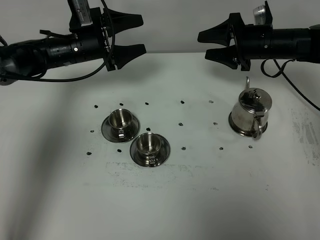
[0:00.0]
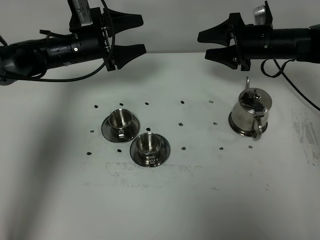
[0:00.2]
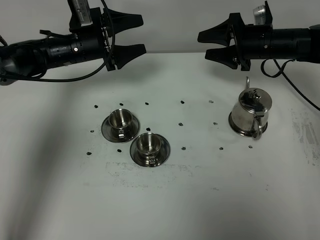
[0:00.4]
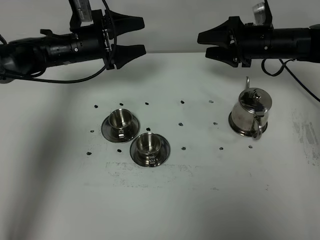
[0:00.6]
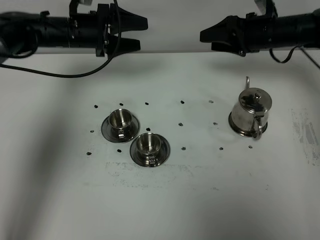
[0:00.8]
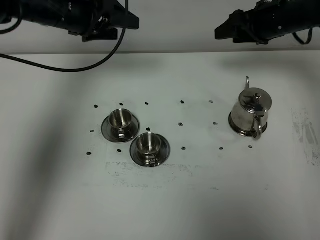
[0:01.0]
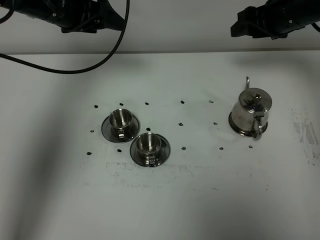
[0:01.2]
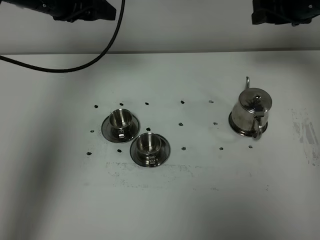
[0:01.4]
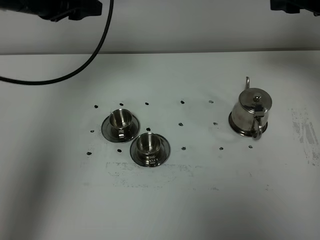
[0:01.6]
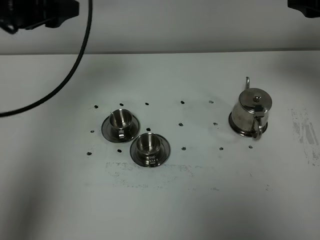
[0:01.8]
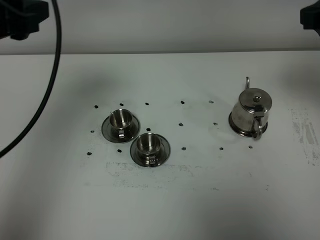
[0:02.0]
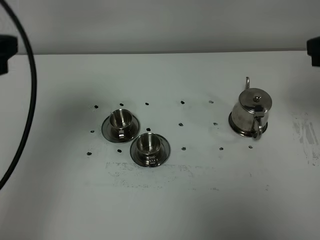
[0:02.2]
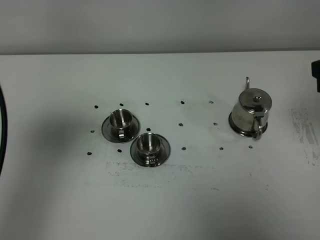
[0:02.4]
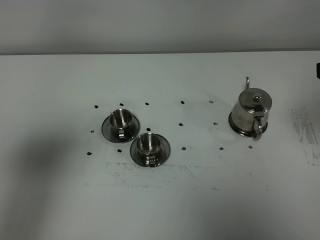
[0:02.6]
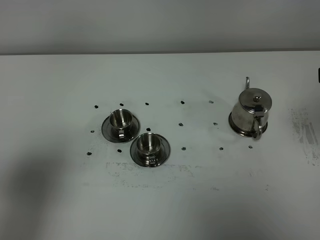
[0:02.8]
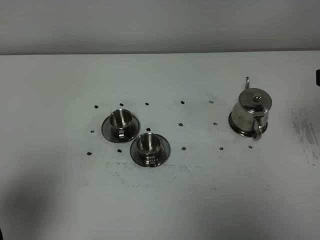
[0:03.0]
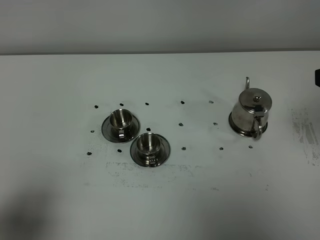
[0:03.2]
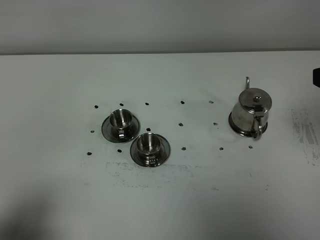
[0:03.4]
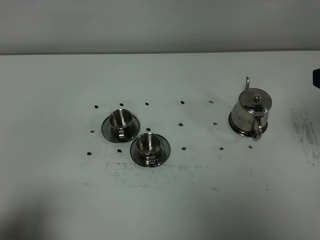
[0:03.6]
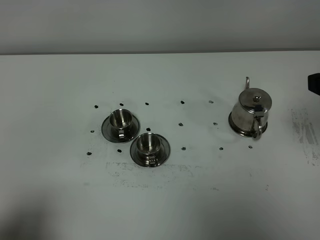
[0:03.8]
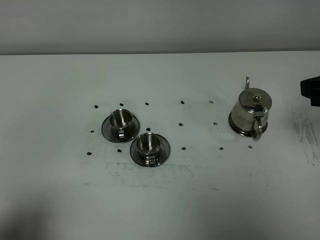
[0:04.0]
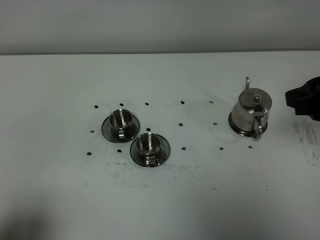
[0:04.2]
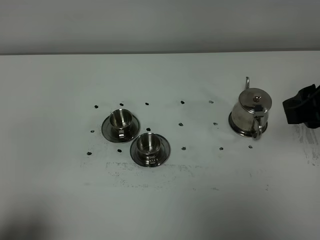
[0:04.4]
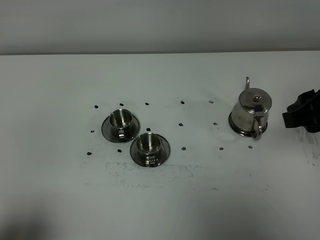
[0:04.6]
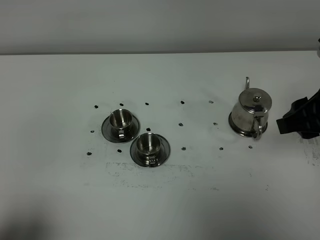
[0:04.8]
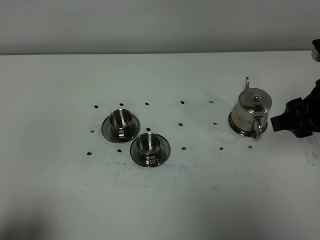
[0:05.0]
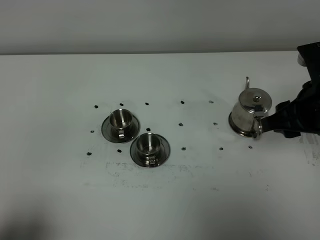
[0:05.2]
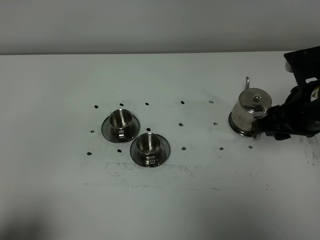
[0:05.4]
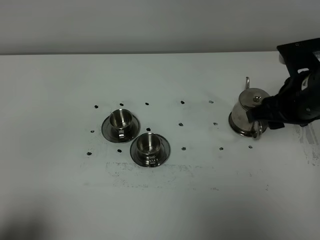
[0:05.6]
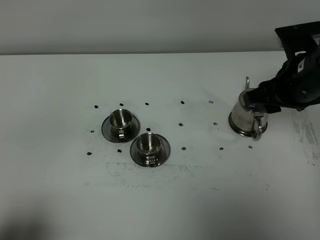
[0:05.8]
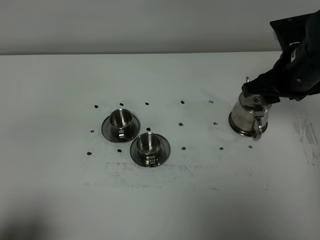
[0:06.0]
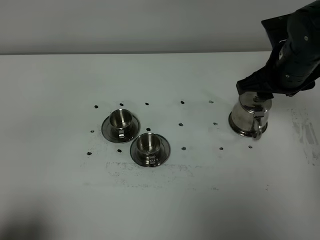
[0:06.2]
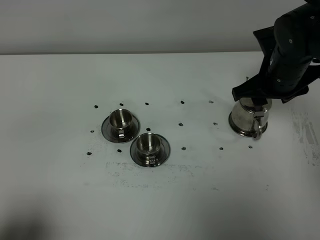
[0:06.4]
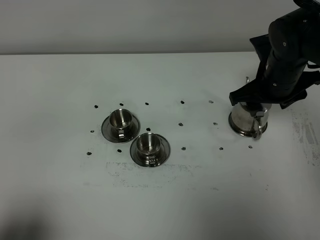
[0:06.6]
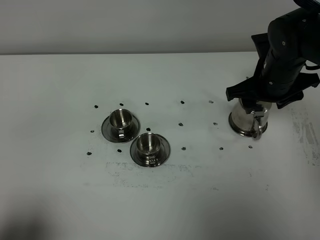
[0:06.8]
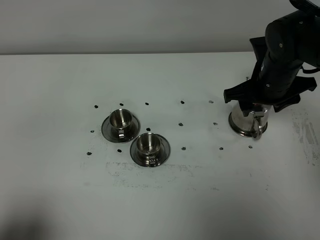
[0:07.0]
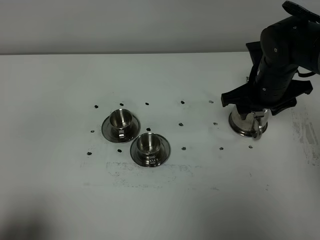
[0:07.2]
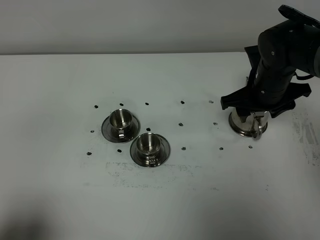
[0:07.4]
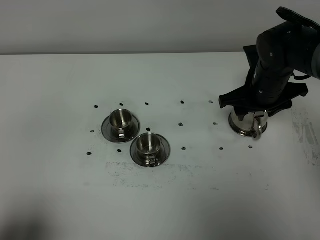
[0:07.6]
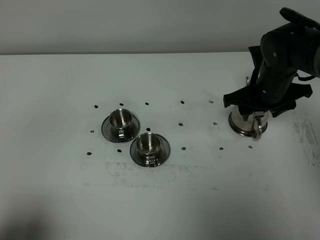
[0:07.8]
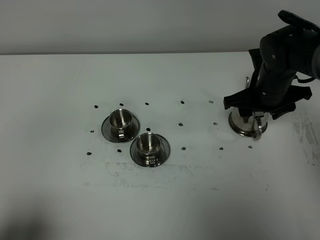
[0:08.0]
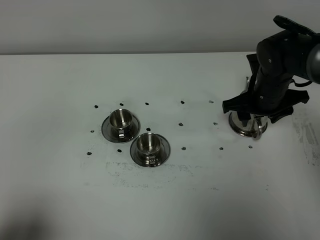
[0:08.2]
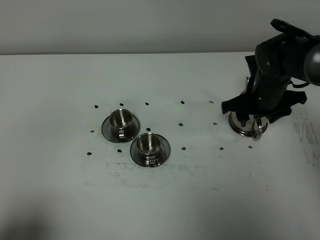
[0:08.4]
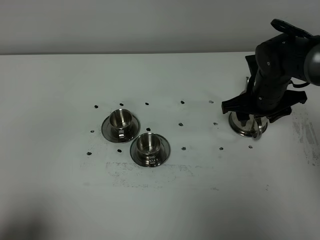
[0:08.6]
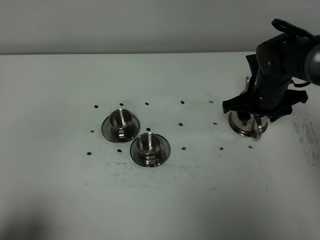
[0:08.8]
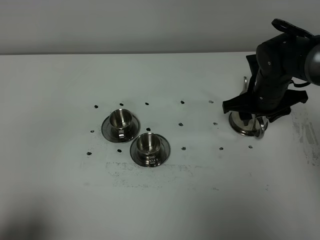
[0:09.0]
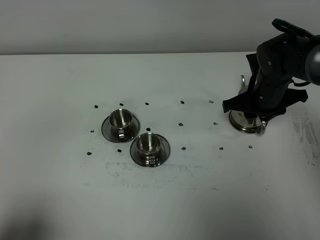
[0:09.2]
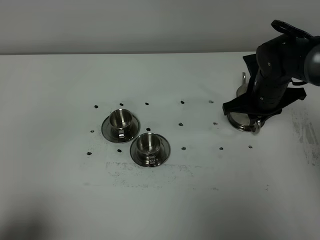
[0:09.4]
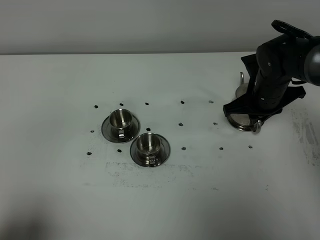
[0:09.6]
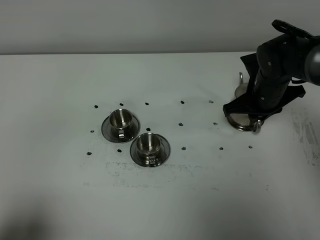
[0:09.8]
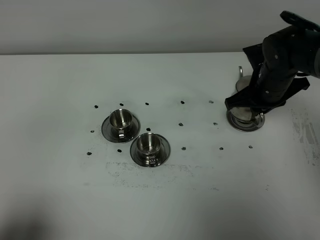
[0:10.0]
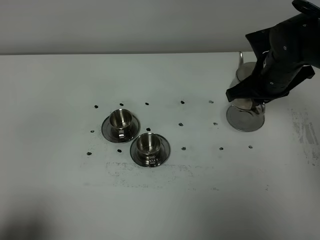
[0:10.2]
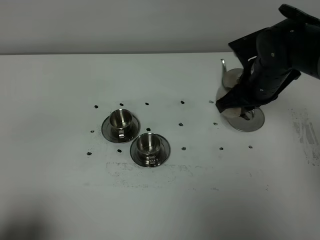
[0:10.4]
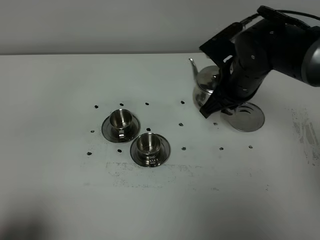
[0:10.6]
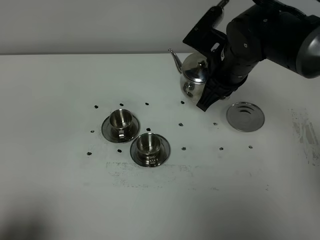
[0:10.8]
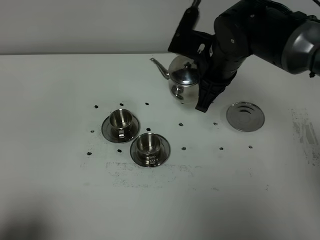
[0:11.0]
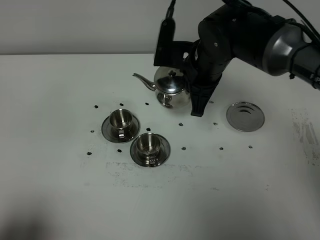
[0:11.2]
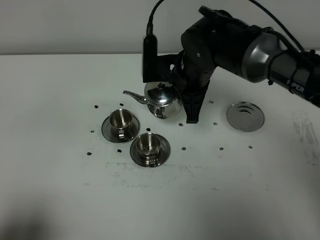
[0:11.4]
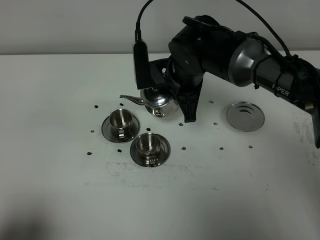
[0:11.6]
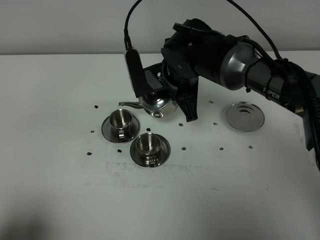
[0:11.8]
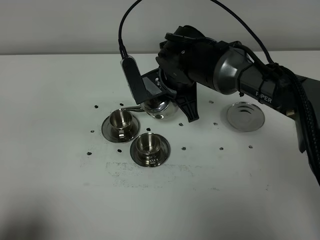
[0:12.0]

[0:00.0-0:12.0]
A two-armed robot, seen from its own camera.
Task of the whole recording: grasp the stainless steel teapot and pour the tea into the two stainless steel teacups one by one, put the stainless steel teapot back in its original place.
Step, 0:00.0 to 0:10.0: Pick up the teapot with the right gripper.
0:00.0 to 0:01.6: The two grippers go about 20 cm upward and backward. The left gripper closes its fingers.
0:01.6 to 0:03.0: The right gripper shifts about 20 cm backward, while the left gripper goes about 35 cm backward.
0:03.0 to 0:04.4: The right gripper moves about 5 cm; the left gripper goes approximately 10 cm backward and downward.
0:04.4 to 0:06.0: The right gripper goes approximately 15 cm forward and downward.
0:06.0 to 0:07.6: The right gripper moves downward, roughly 10 cm.
0:07.6 to 0:09.0: The grippers stay close to where they were, moving slightly.
0:09.0 to 0:10.4: The right gripper heads upward, covering some 5 cm, and closes its fingers.
0:10.4 to 0:12.0: The right gripper shifts roughly 15 cm to the left.

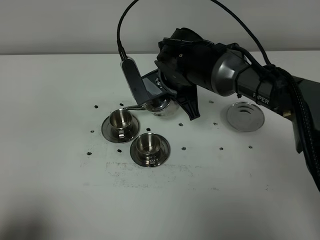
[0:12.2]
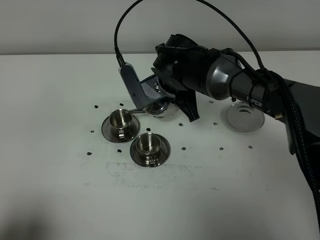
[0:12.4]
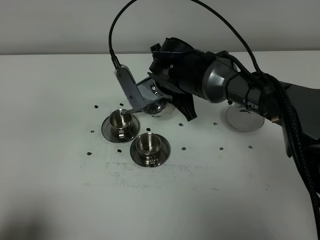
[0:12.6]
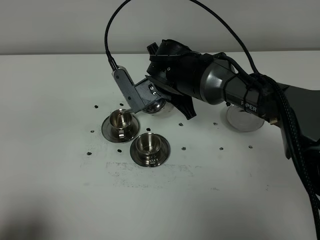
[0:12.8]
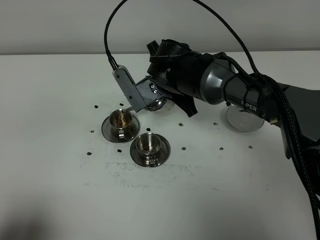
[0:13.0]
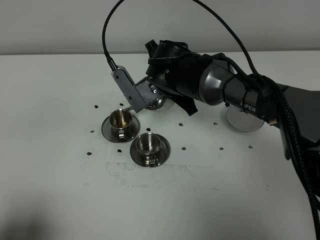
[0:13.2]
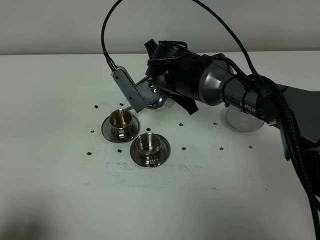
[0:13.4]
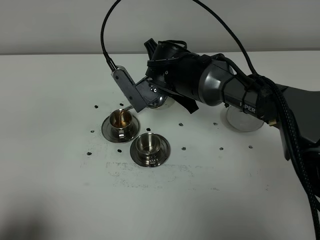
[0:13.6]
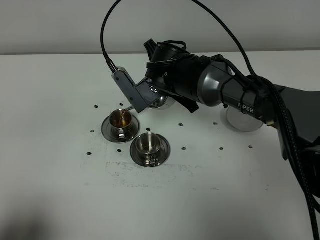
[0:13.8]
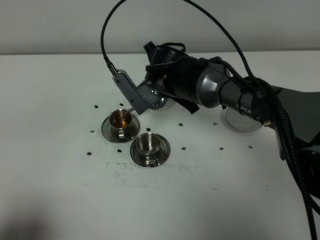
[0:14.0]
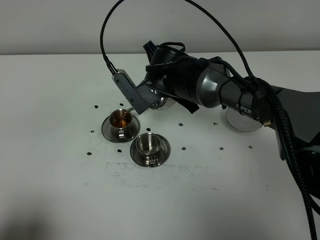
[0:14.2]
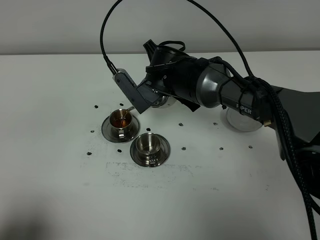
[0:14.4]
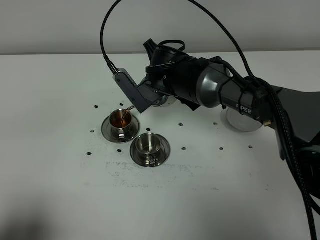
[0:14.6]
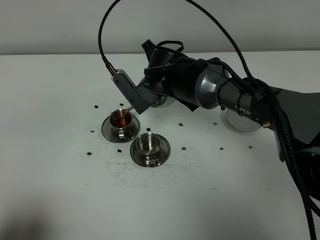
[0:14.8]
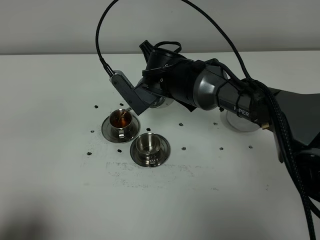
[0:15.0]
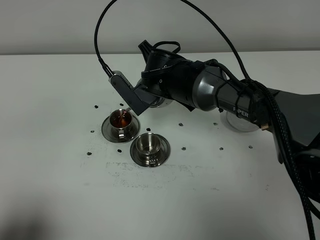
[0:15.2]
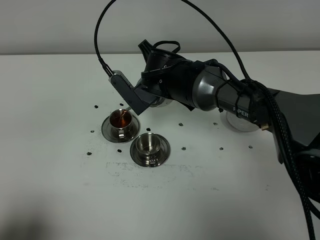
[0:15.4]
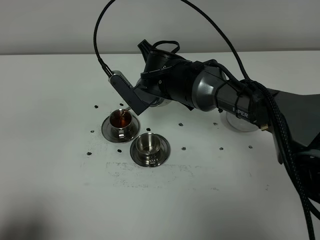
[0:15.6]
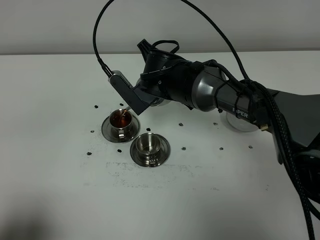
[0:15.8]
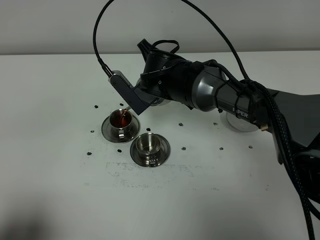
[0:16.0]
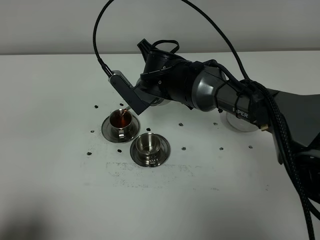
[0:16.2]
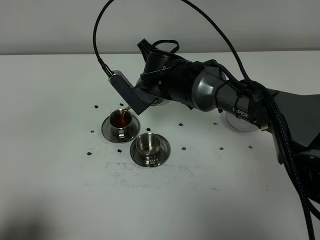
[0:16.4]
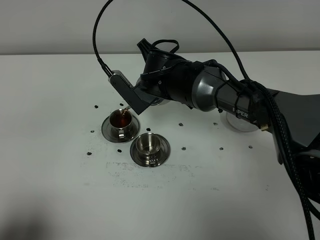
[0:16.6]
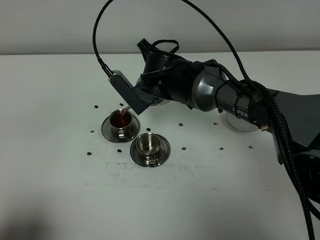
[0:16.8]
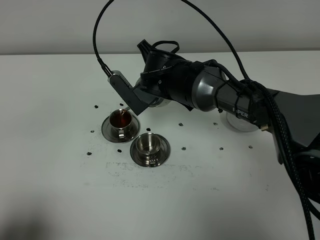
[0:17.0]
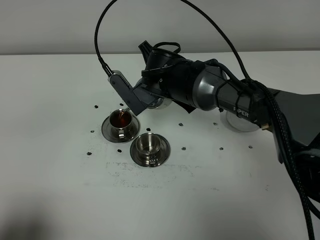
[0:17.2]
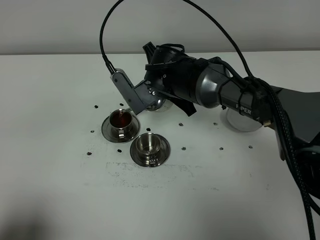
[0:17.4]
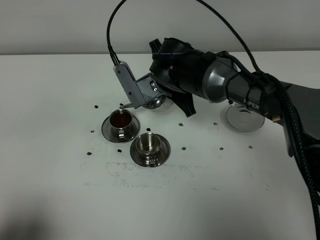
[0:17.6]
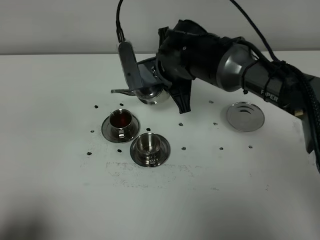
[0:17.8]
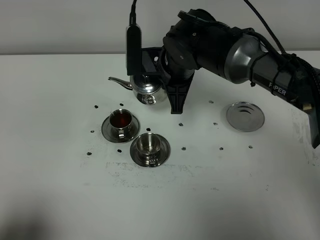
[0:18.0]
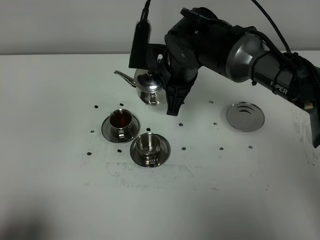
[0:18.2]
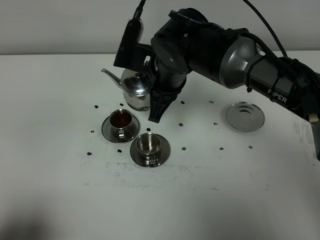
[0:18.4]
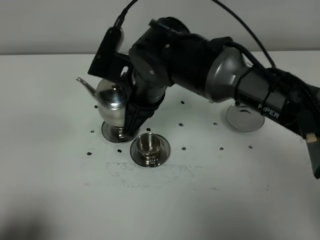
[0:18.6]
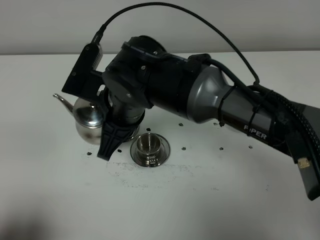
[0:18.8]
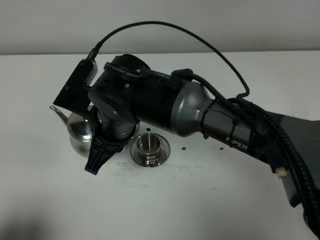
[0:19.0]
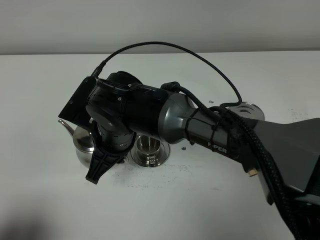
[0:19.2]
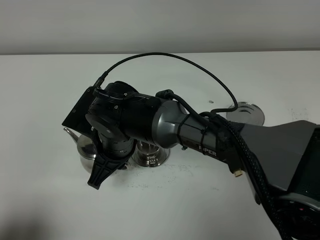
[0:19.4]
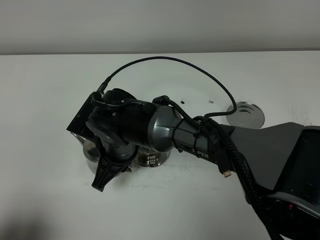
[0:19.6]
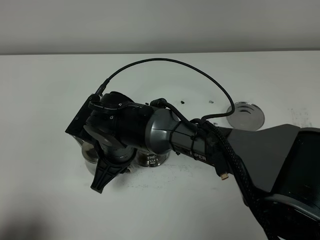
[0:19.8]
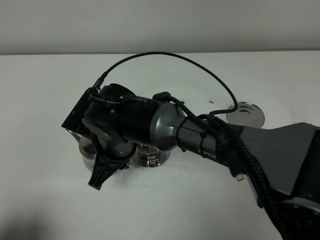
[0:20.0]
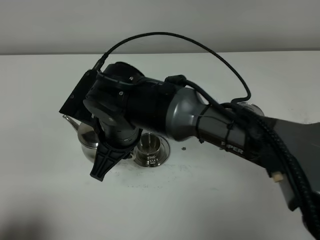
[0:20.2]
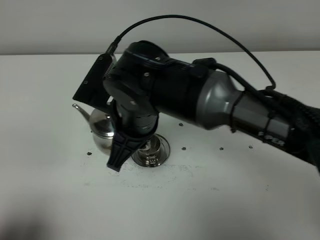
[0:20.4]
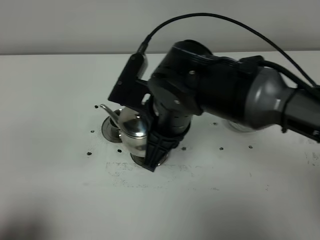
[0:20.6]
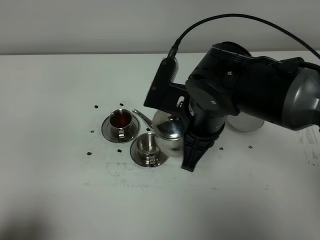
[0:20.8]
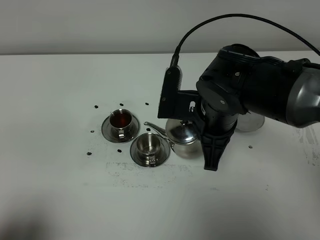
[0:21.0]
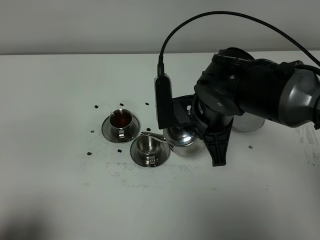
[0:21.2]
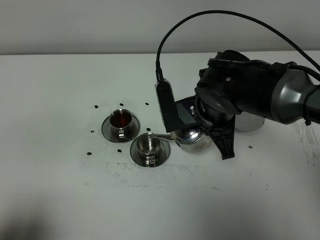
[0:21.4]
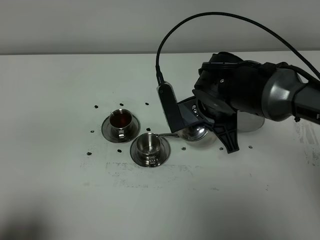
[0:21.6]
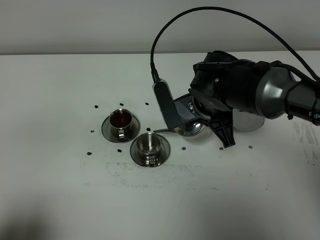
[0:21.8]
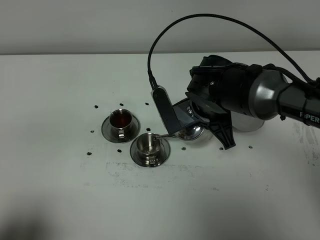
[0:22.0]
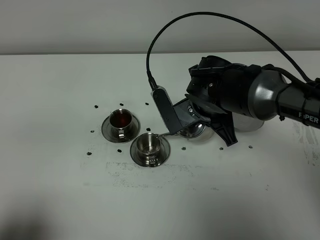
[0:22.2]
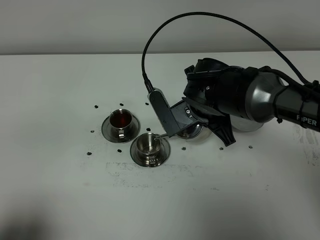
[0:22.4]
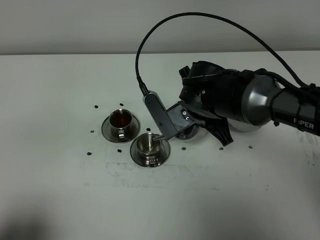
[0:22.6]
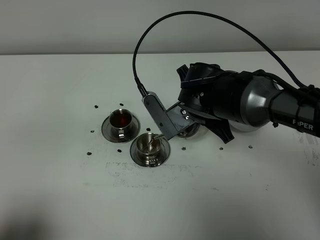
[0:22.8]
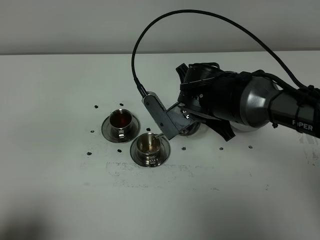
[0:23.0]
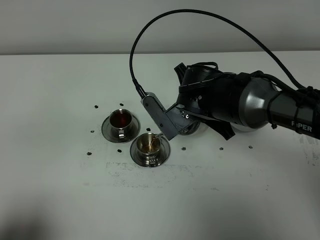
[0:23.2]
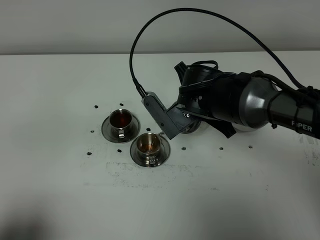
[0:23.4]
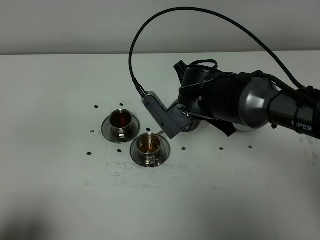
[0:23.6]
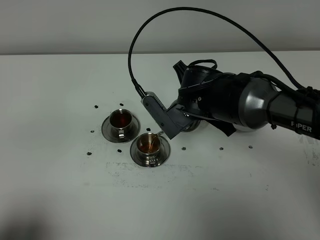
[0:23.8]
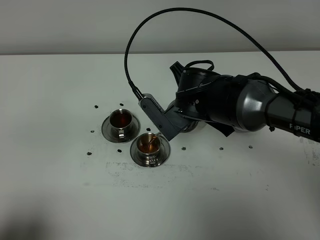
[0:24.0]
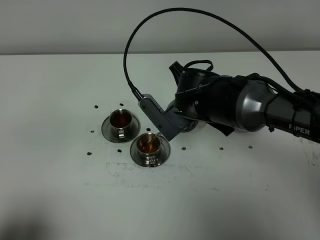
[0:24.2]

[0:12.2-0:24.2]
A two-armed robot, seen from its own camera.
Task of the whole recording: grasp the stainless steel teapot and pour the tea into the two stainless steel teacups one by one, put the stainless steel teapot back in its original place.
Step, 0:12.2 to 0:17.6: Pour tea into the teacup with the right gripper.
0:12.2 to 0:13.8: The grippers stay close to where they were, moving slightly.
0:13.8 to 0:15.2: The two grippers keep their place.
0:15.2 to 0:16.6: Neither gripper changes place.
0:18.2 to 0:19.8: The right gripper goes roughly 15 cm to the left, backward and downward.
0:19.8 to 0:21.2: The right gripper heads to the right and upward, covering about 20 cm.
0:22.6 to 0:24.2: The grippers move only a little.
